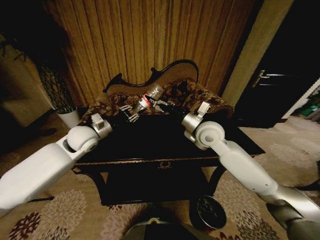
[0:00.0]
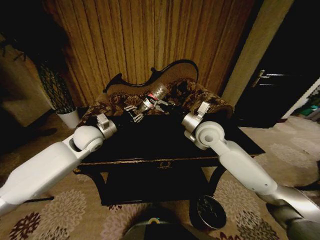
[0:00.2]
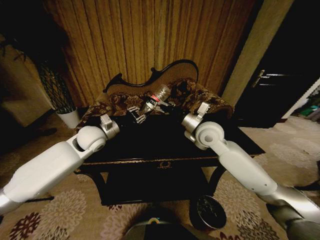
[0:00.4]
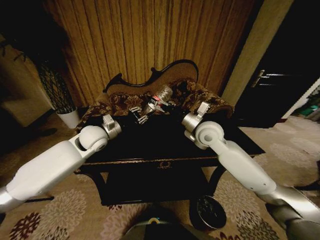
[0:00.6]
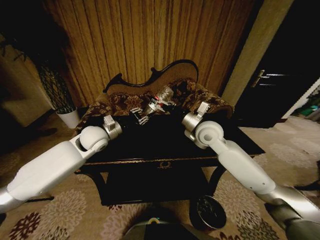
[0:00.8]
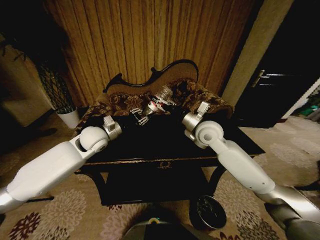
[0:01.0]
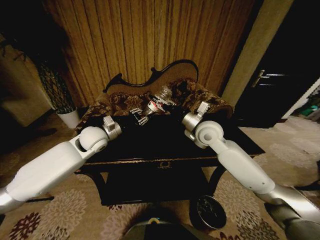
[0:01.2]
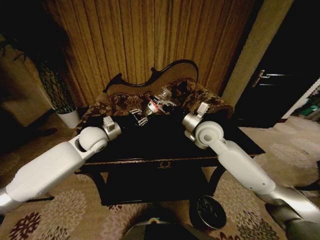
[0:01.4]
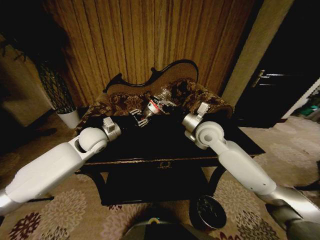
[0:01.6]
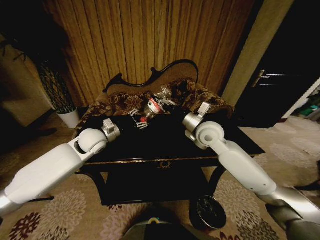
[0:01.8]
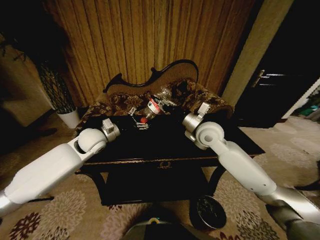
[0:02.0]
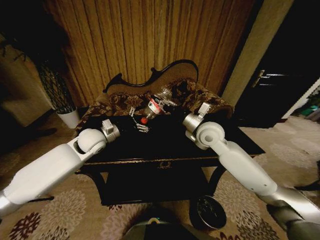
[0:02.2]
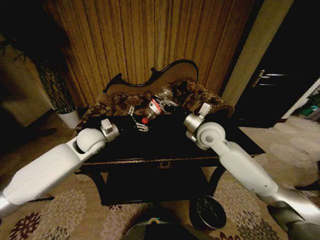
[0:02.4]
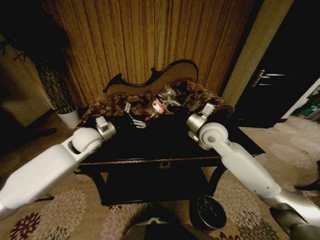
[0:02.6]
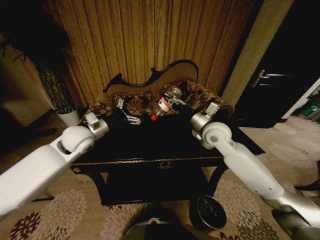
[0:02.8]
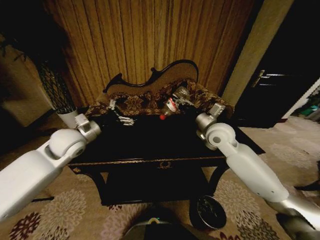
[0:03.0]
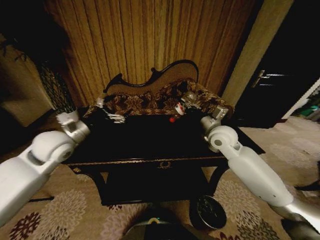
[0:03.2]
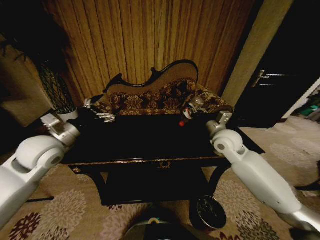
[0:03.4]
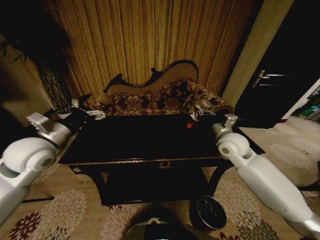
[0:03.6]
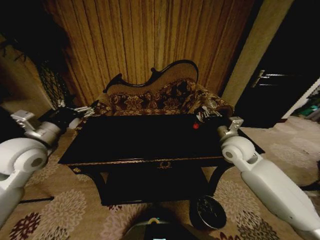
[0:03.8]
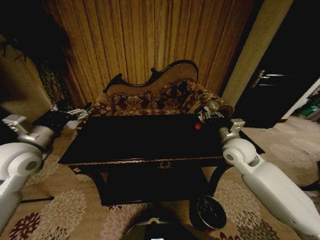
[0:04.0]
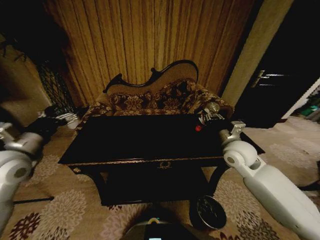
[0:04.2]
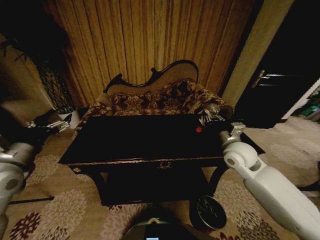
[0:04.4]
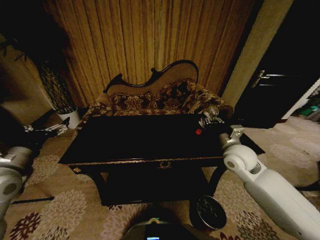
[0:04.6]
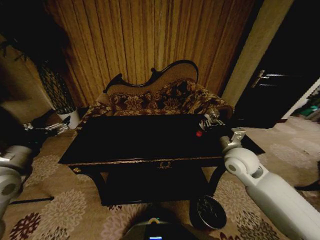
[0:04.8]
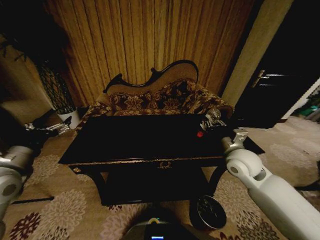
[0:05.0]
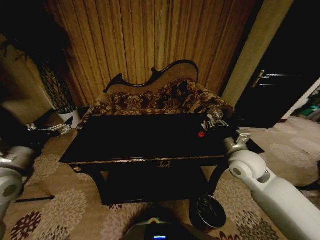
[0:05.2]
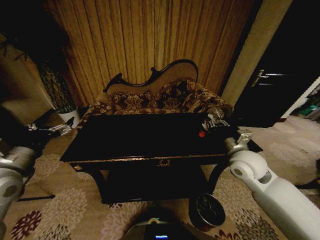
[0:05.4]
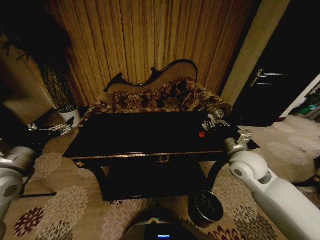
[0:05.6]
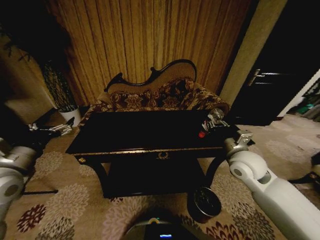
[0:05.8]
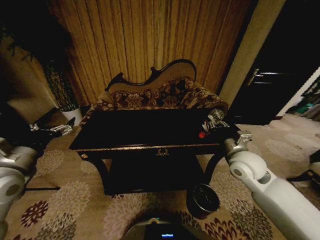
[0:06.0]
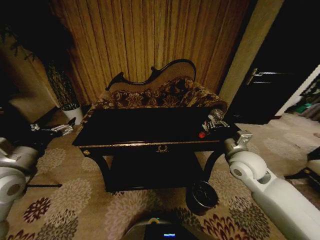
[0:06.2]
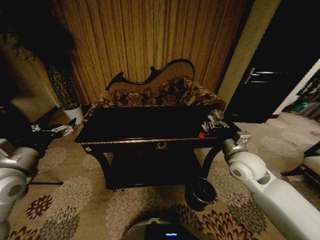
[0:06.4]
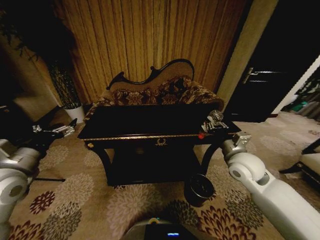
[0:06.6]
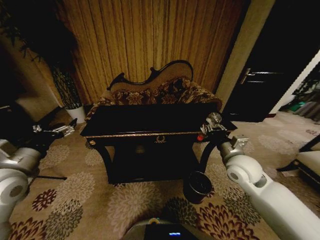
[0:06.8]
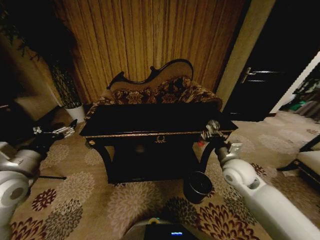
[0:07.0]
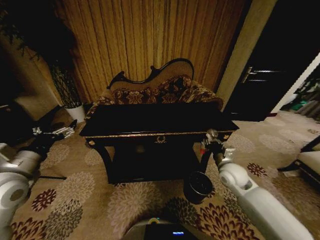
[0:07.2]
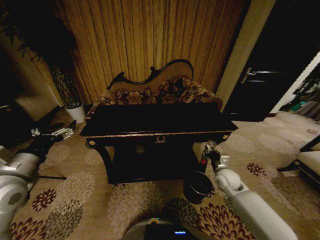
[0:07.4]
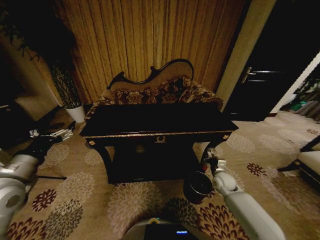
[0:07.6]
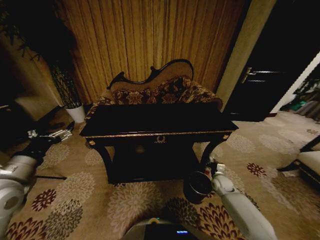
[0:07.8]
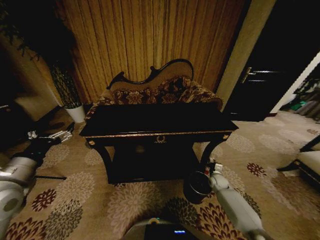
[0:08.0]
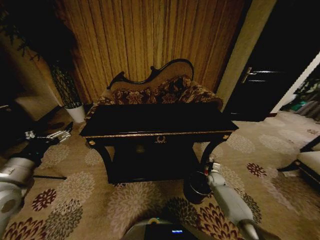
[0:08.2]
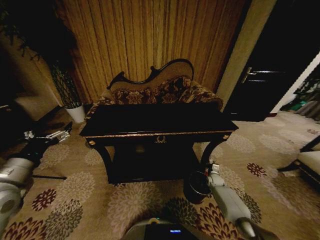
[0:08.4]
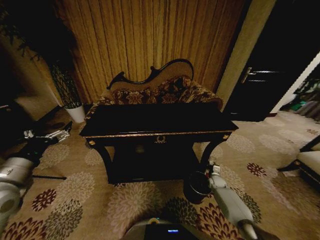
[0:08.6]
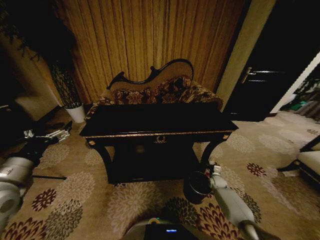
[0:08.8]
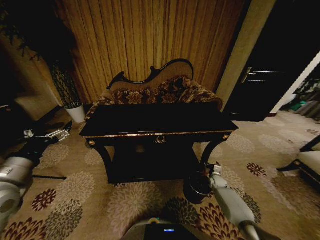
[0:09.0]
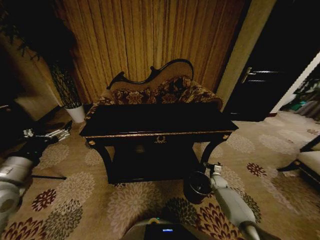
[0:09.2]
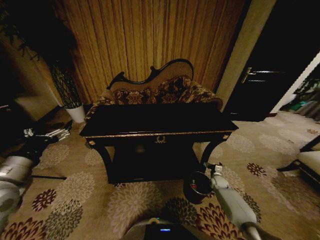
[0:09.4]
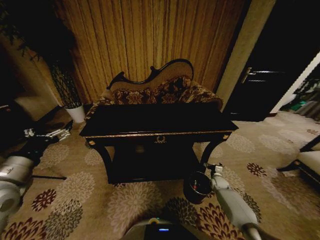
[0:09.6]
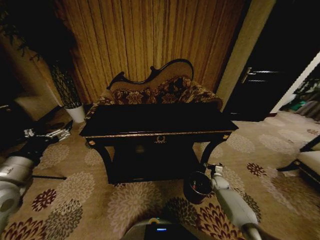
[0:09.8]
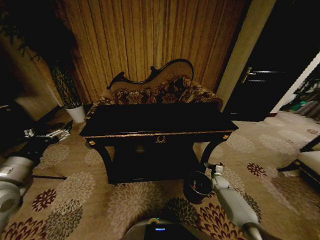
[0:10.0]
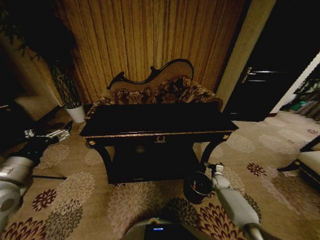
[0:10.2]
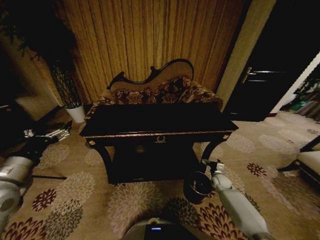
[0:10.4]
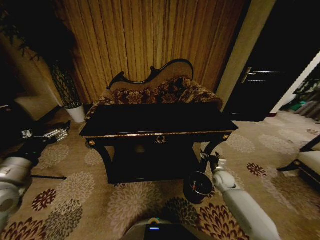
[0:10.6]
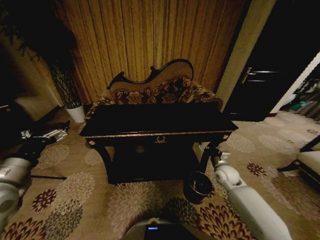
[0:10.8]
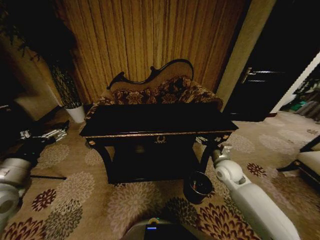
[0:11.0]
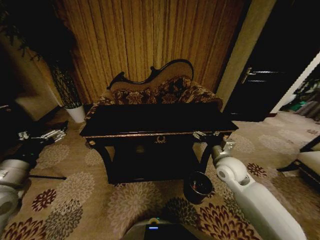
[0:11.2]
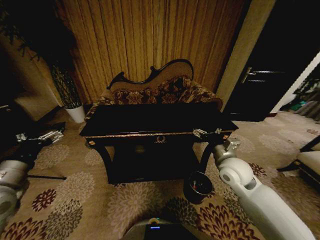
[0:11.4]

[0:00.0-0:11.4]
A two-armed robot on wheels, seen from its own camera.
Task of the whole recording: Move to the front of the table and place the trash on the table into the trash bin.
0:00.0 to 0:01.4: The right gripper closes.
0:01.4 to 0:02.8: The left gripper opens.
0:02.8 to 0:04.2: The right gripper is displaced to the right and backward by approximately 10 cm. The left gripper travels to the left and backward by approximately 20 cm.
0:04.2 to 0:05.6: The grippers stay close to where they were, moving slightly.
0:05.6 to 0:07.2: The right gripper moves downward, some 10 cm.
0:07.2 to 0:08.6: The right gripper heads downward, covering some 25 cm.
0:08.6 to 0:10.0: The right gripper opens.
0:10.0 to 0:11.4: The right gripper travels upward and to the left by roughly 35 cm.

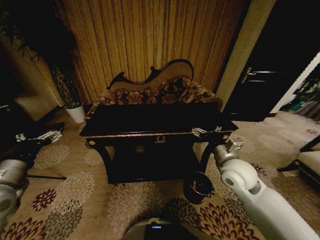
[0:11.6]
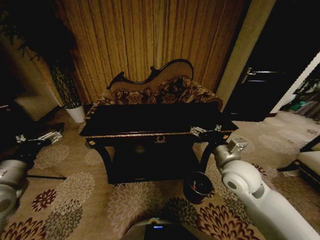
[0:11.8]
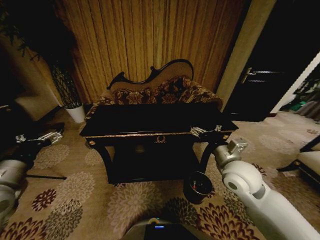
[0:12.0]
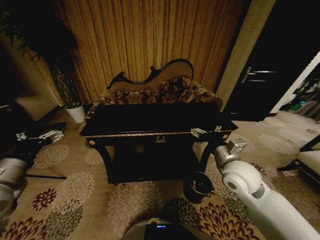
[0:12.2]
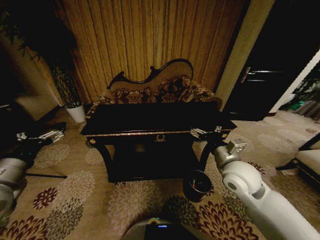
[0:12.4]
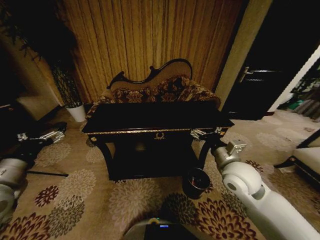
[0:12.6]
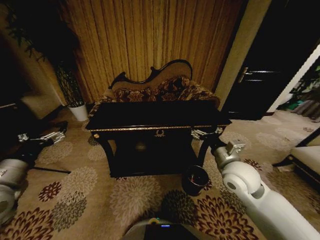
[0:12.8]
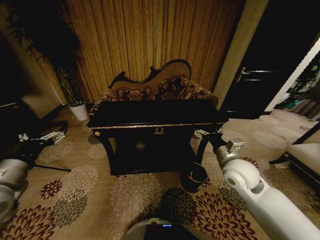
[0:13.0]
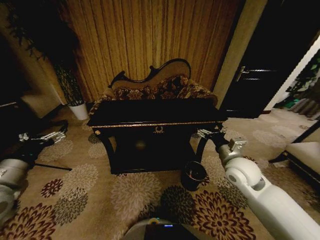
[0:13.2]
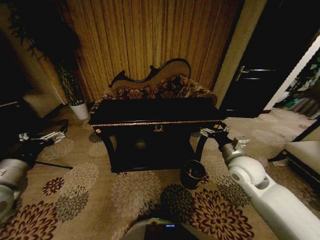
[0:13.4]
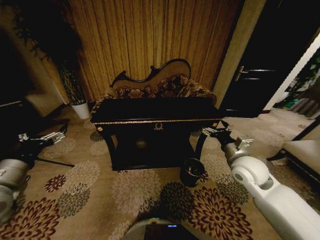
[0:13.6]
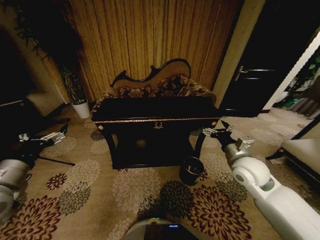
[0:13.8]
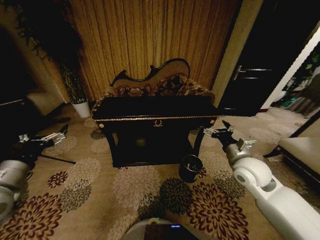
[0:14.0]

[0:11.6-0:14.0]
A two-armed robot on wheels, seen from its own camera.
Task of the whole recording: Move to the front of the table and place the trash on the table into the trash bin.
0:11.6 to 0:12.8: The grippers stay close to where they were, moving slightly.
0:12.8 to 0:14.0: The right gripper travels to the right by roughly 5 cm.

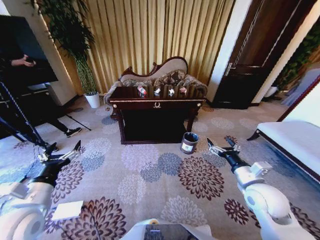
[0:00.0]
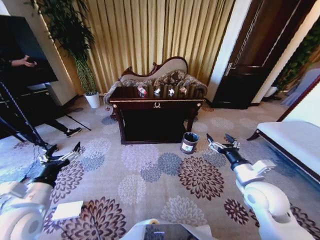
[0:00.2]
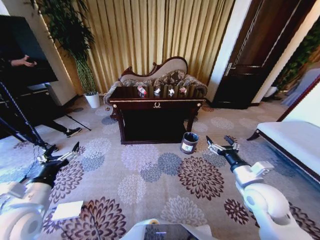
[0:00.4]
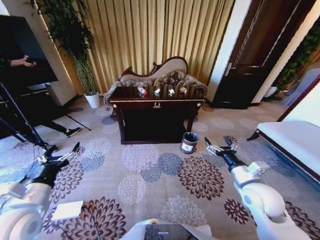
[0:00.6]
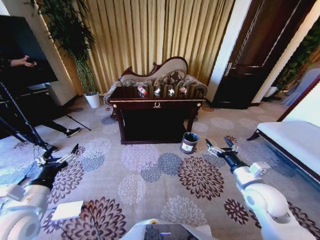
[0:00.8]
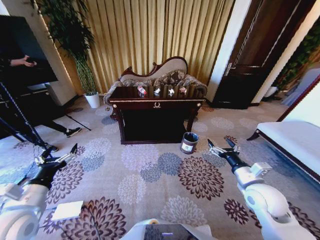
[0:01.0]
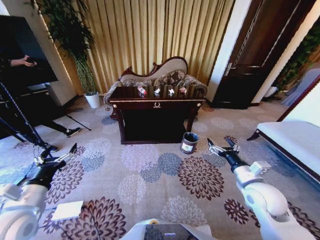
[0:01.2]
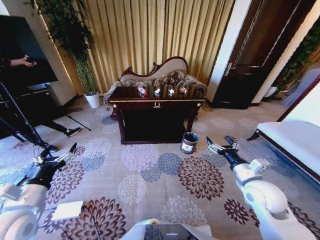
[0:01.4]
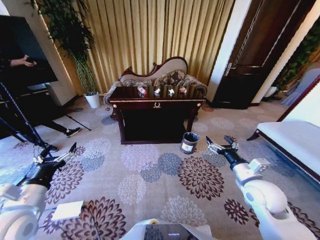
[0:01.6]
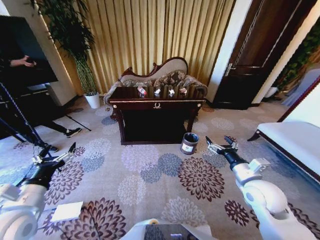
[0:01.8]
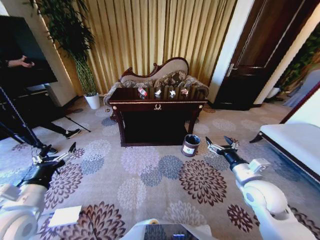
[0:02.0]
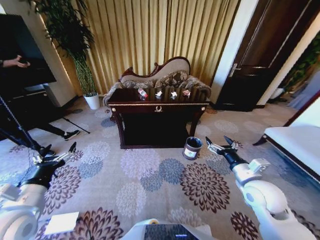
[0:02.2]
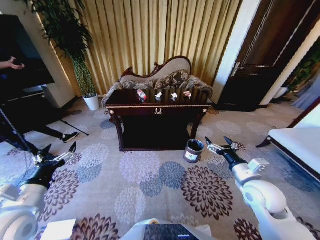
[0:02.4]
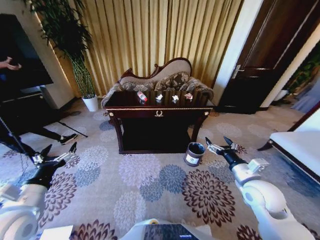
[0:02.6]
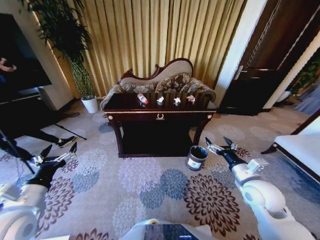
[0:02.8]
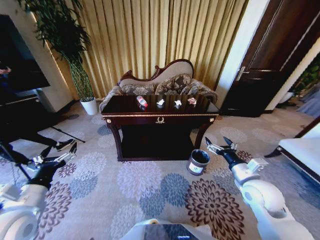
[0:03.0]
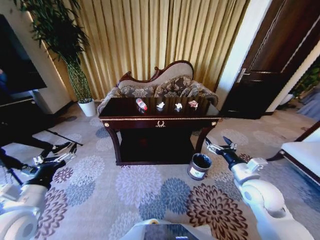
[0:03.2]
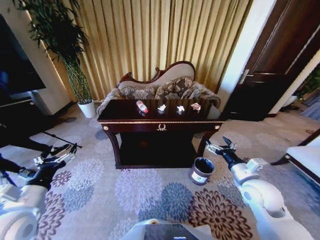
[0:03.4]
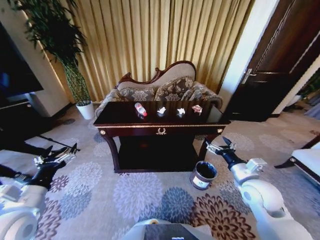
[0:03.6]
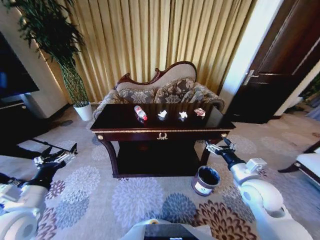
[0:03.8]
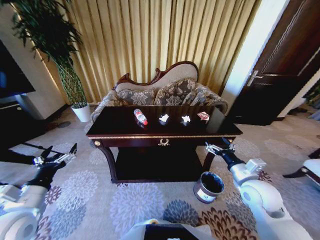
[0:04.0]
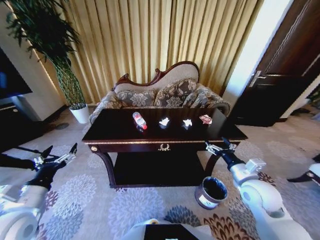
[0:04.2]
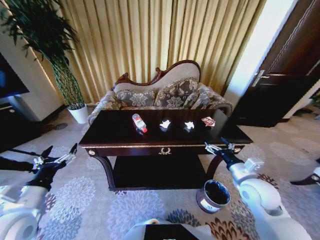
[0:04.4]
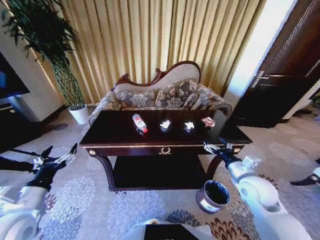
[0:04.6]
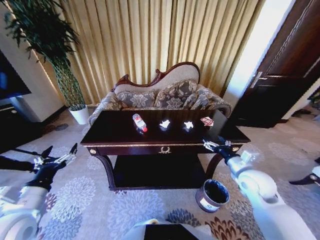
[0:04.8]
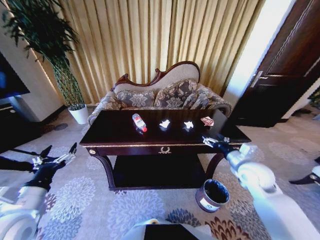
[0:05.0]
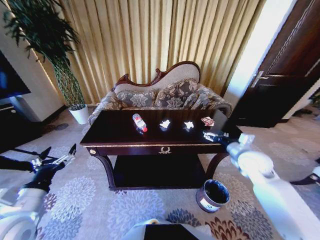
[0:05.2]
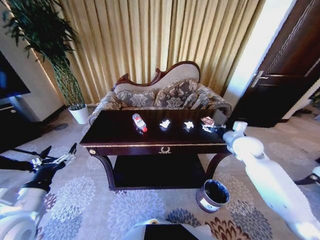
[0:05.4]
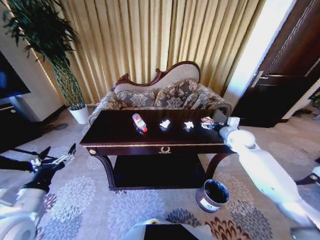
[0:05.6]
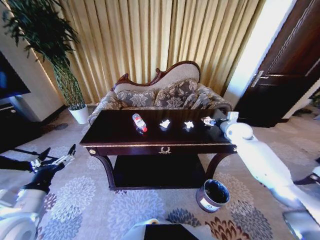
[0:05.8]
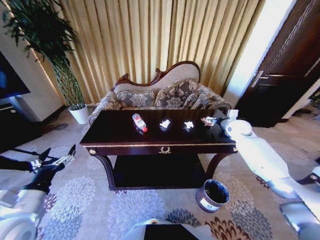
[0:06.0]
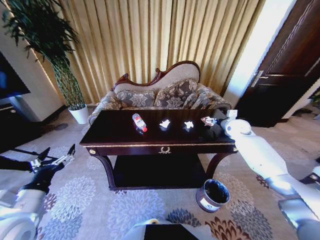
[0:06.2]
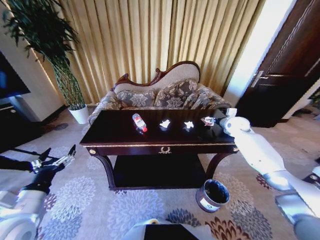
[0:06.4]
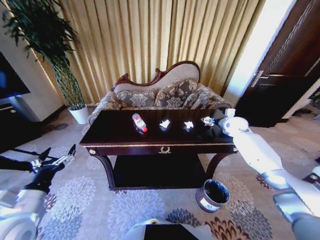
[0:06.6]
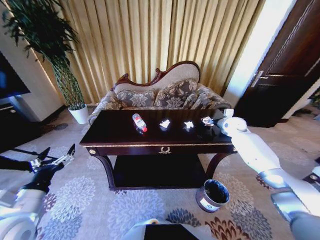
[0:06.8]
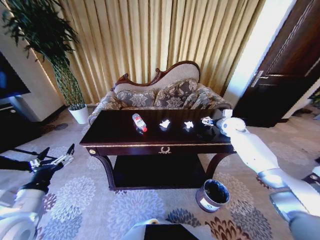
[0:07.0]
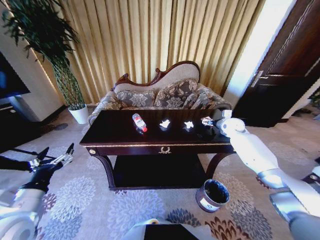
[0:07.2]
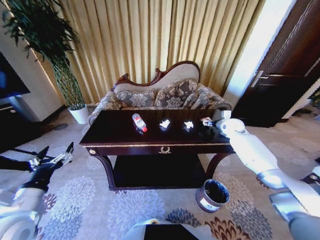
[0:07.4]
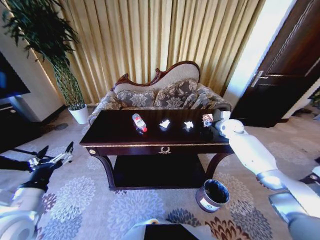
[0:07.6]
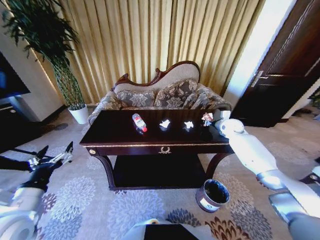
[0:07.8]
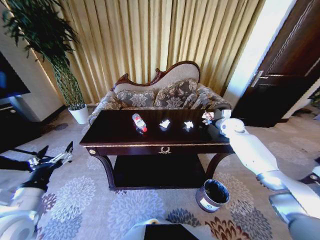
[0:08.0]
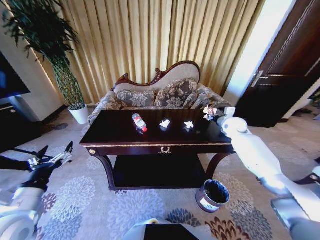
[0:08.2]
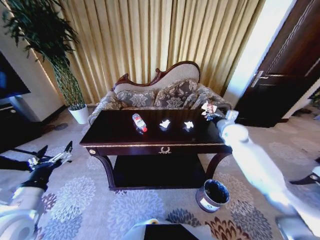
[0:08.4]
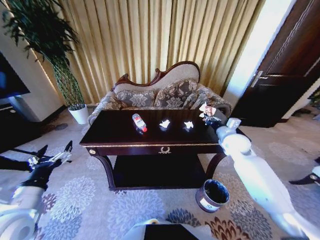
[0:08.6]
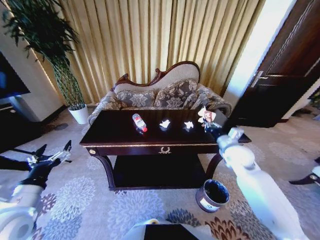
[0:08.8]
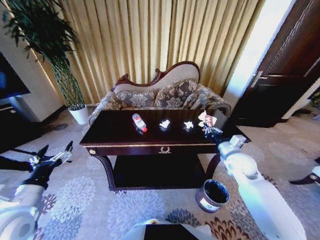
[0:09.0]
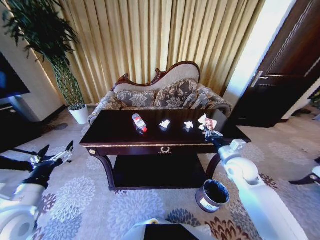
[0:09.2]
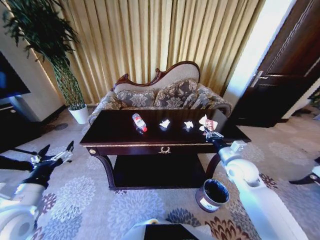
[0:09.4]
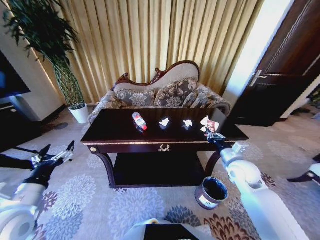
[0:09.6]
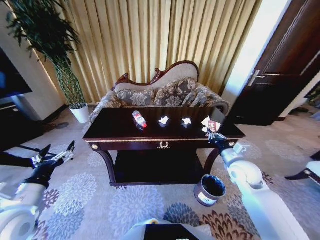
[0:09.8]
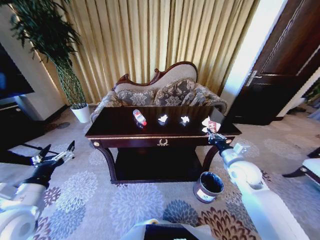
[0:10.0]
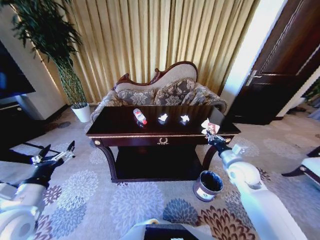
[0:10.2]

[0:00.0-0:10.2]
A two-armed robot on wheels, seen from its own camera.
Task of the whole recording: Move to the front of the table and place the trash on the table into the trash bin.
0:04.4 to 0:05.8: The right gripper shifts roughly 25 cm forward.
0:05.8 to 0:07.2: The right gripper moves forward, approximately 5 cm.
0:07.2 to 0:08.8: The right gripper goes about 20 cm backward and to the left, and closes up.
0:08.8 to 0:10.2: The right gripper travels backward by approximately 5 cm.
